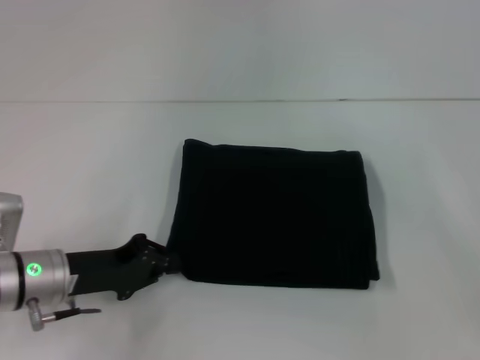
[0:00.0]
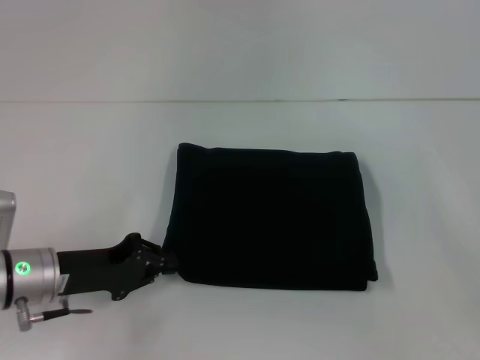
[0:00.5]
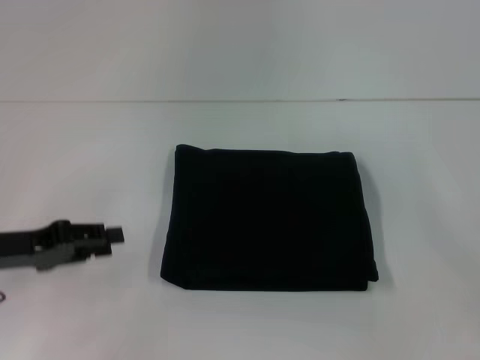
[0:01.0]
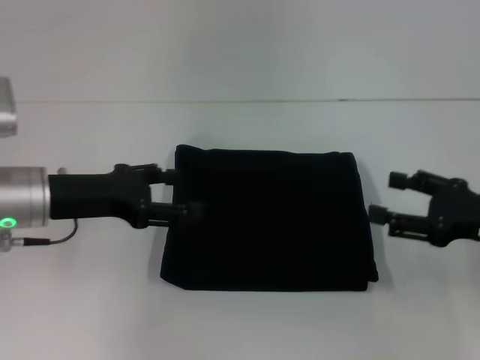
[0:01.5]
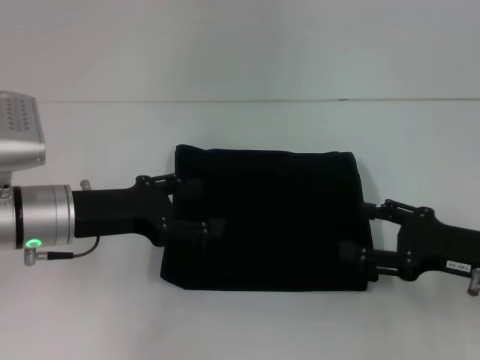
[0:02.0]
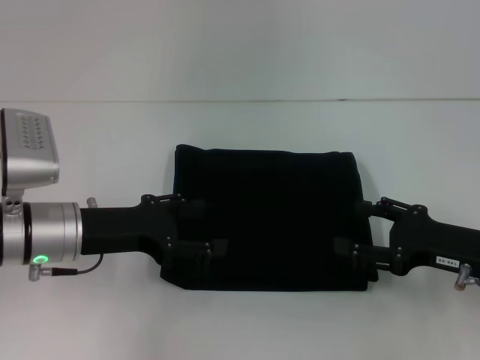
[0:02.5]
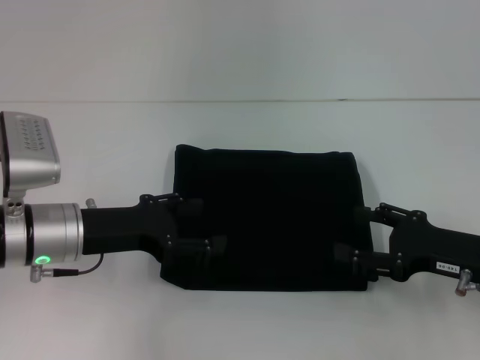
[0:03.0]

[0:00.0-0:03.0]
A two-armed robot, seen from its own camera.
0:00.0 to 0:01.5: The left gripper heads upward, covering about 10 cm, and opens its fingers. The right gripper is displaced to the left by some 5 cm.
0:01.5 to 0:03.0: The grippers make only small movements.
